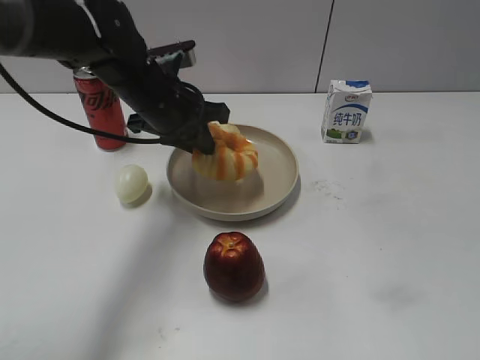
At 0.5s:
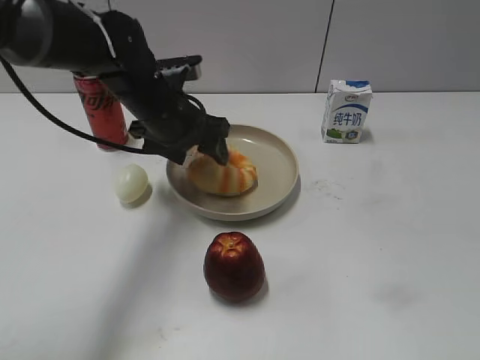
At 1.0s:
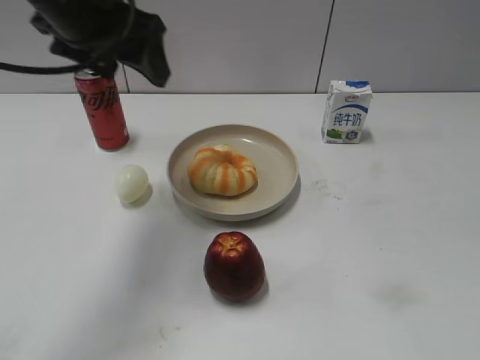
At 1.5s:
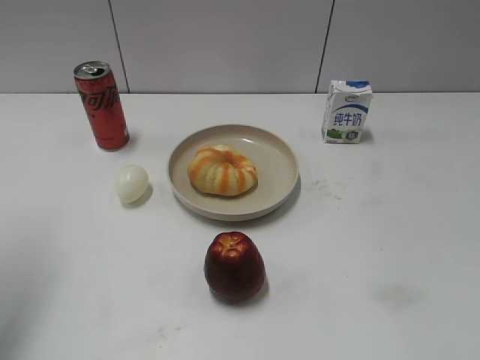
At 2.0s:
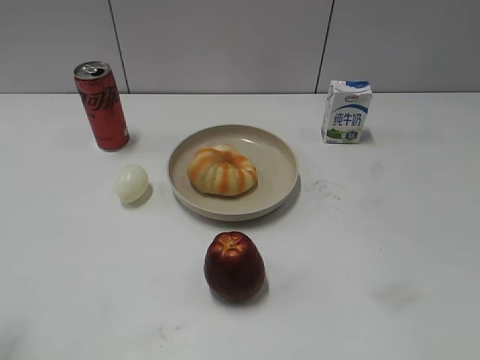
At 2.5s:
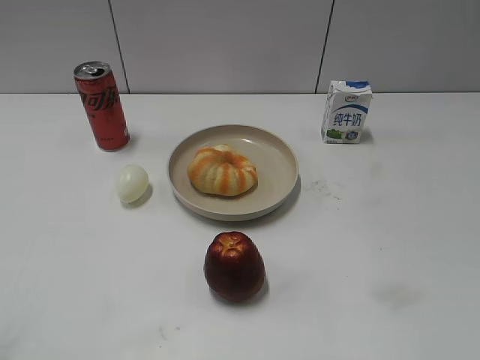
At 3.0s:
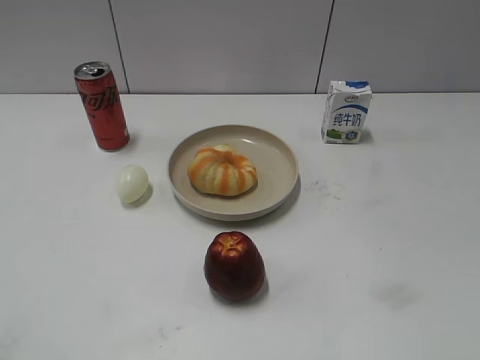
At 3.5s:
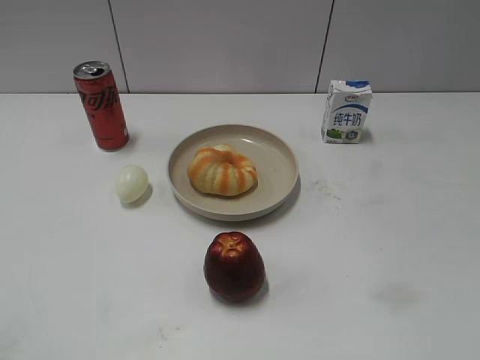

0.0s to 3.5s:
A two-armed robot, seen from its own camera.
0.0s to 2.0s: The left gripper heads backward, to the left and upward, covering some 40 cm, and opens its fingers.
